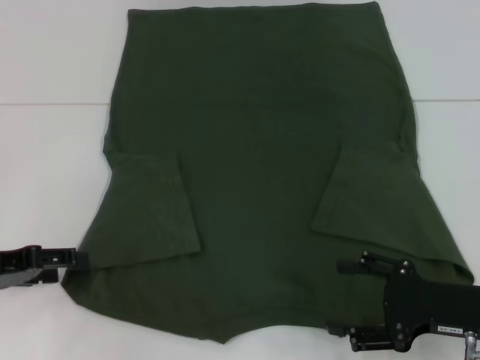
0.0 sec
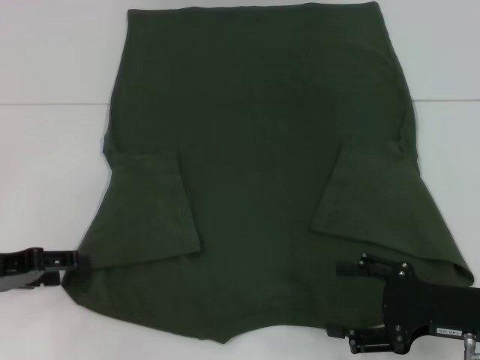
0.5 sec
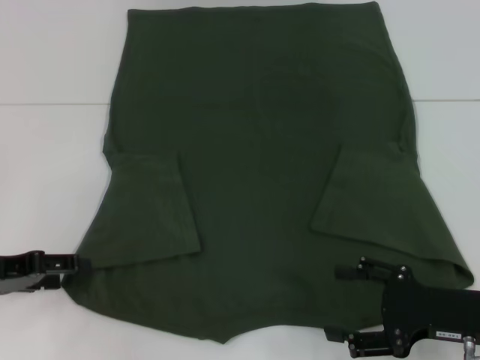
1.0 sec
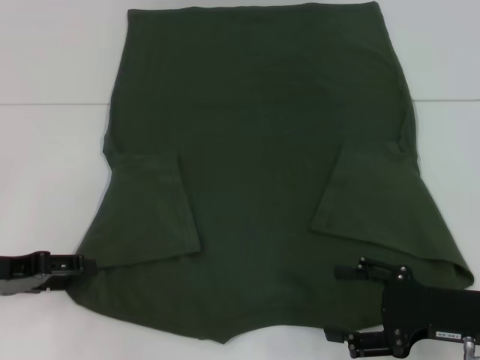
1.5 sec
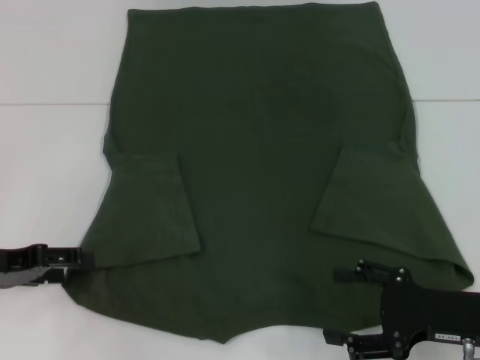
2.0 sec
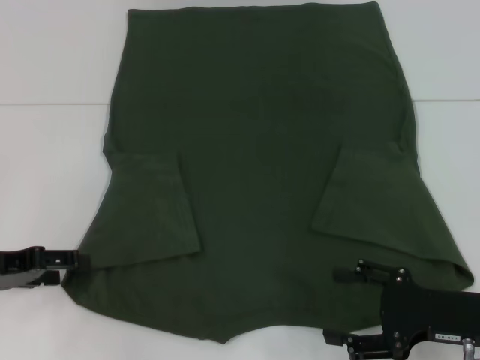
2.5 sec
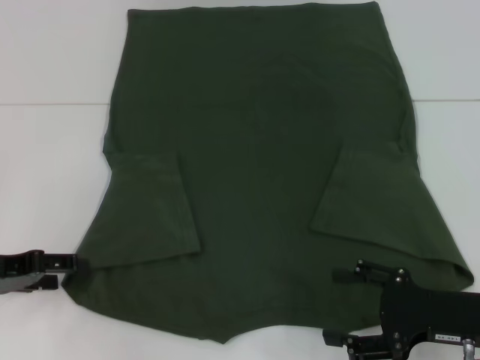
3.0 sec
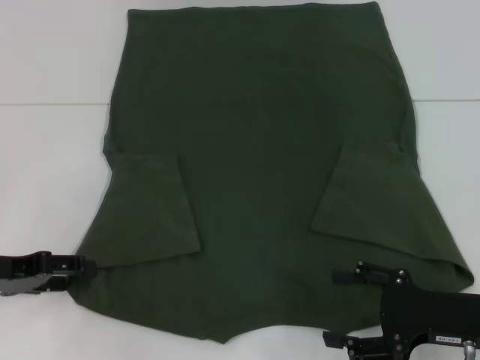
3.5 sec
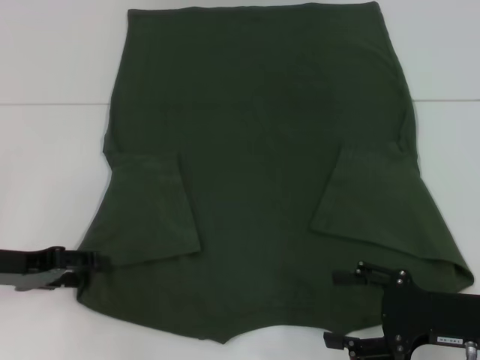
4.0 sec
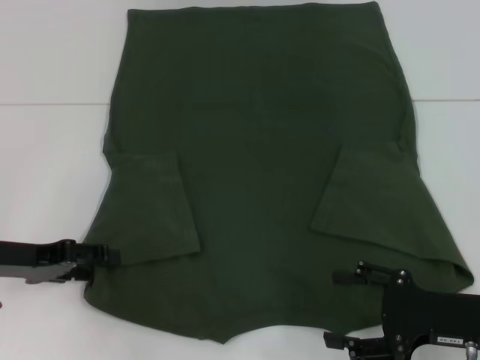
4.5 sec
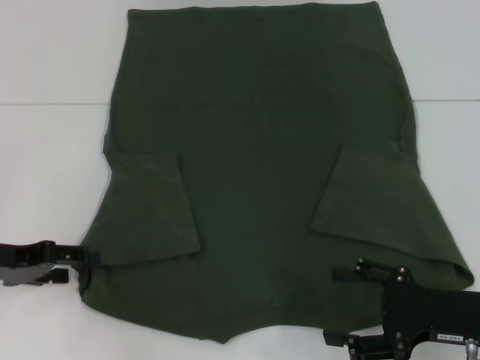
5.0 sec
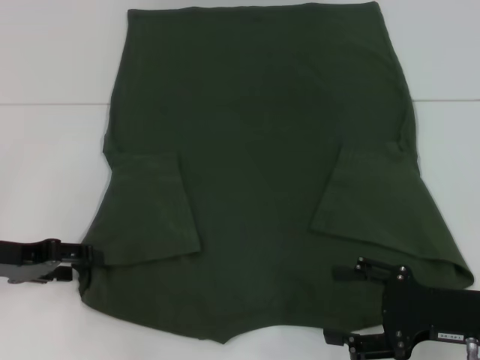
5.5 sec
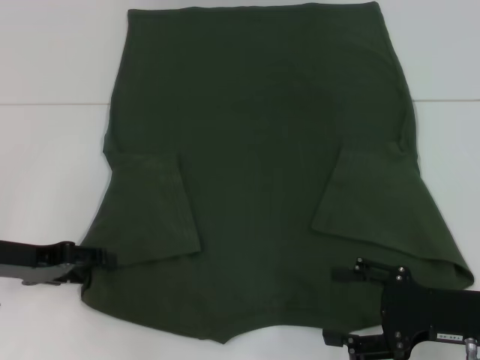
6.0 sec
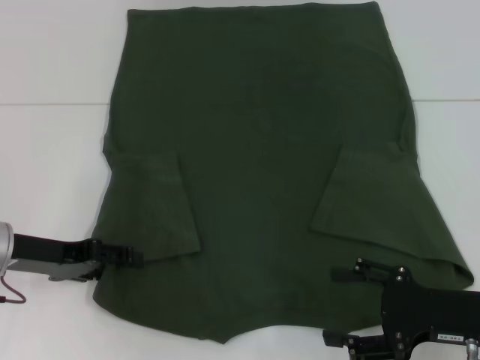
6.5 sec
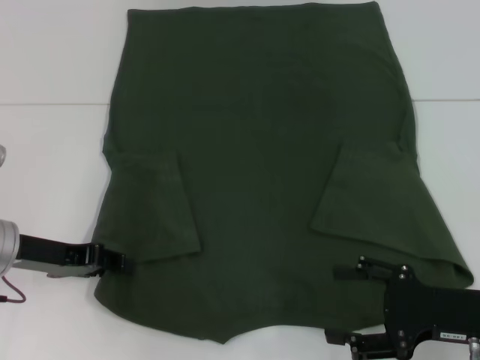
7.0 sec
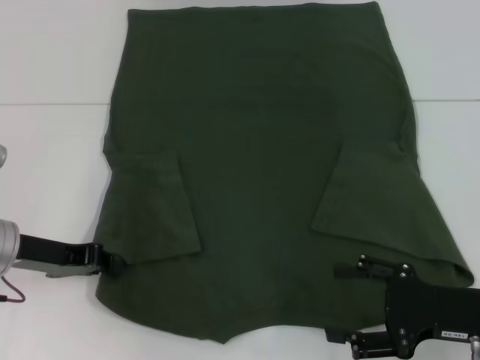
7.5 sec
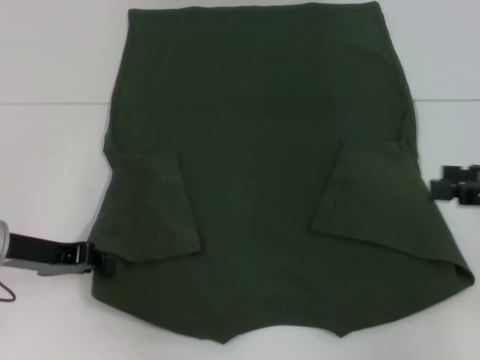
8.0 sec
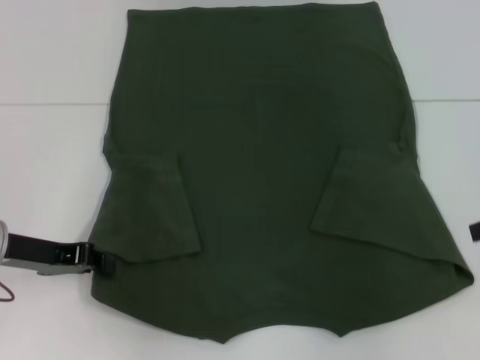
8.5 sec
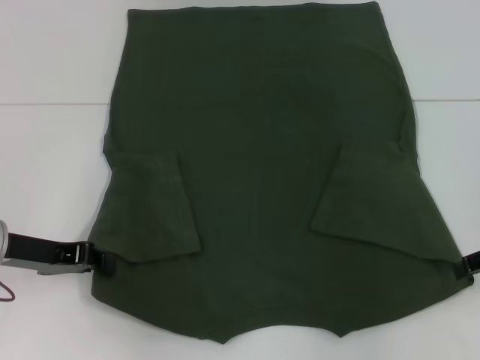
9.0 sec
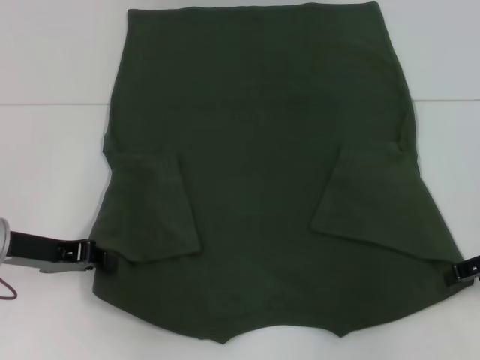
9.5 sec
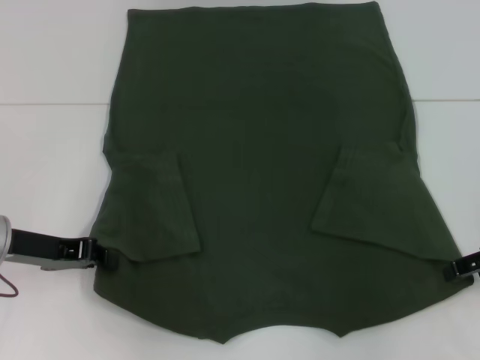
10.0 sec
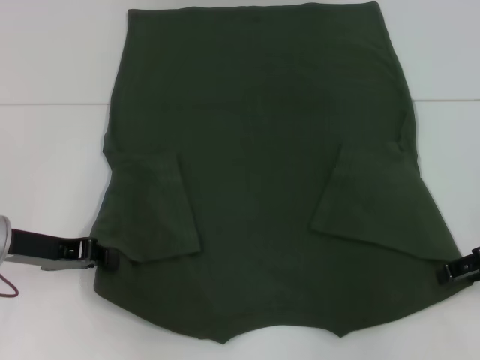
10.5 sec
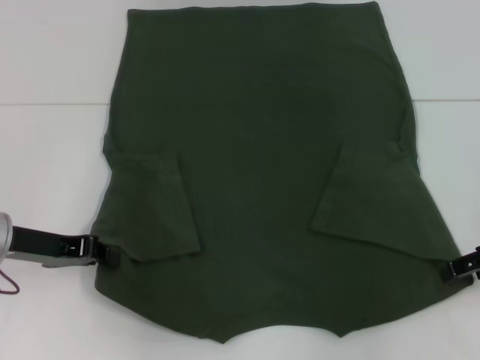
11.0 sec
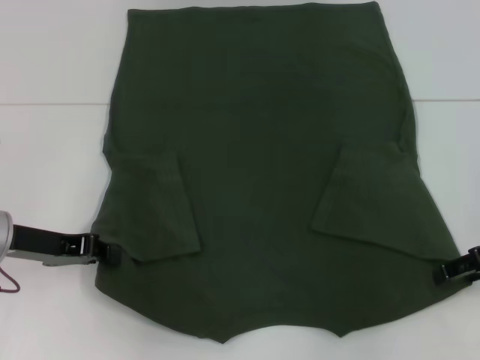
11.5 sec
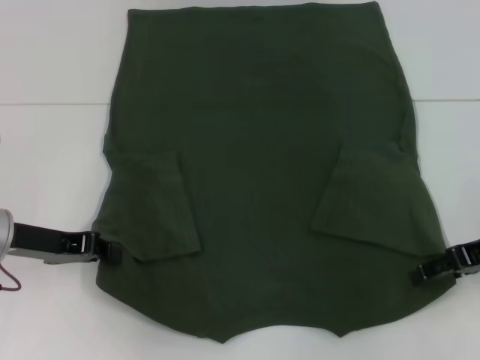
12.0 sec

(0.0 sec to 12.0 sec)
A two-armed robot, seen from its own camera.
Step, 0.0 sec - 7.0 sec: Grab the bottom left corner with your left hand.
0.0 sec - 2.0 sec: The two grippers keep their place.
2.0 sec - 6.0 sec: The grippers stay close to where they were, moving slightly.
6.0 sec - 8.0 sec: The right gripper travels upward and to the right by roughly 15 cm, while the left gripper closes.
8.0 sec - 10.0 sec: The right gripper changes place by roughly 5 cm.
10.0 sec - 12.0 sec: There are only small adjustments of the grippers.

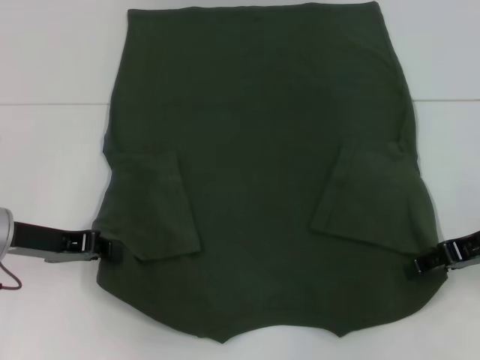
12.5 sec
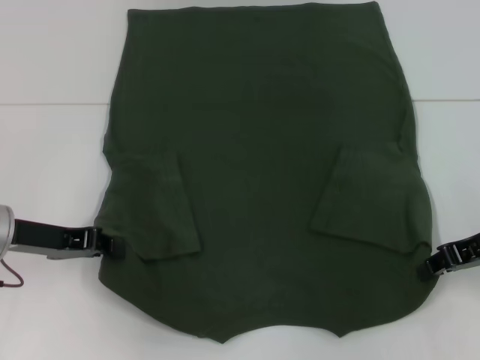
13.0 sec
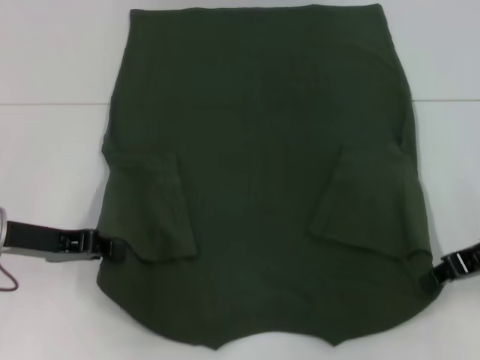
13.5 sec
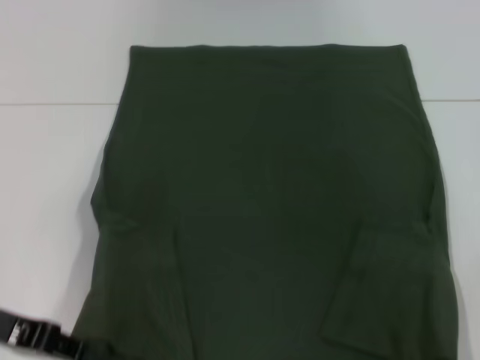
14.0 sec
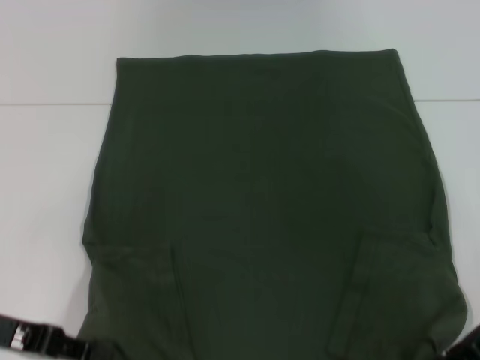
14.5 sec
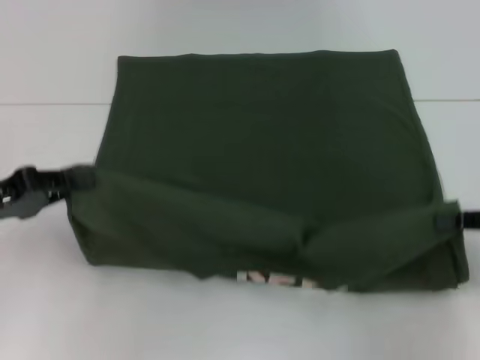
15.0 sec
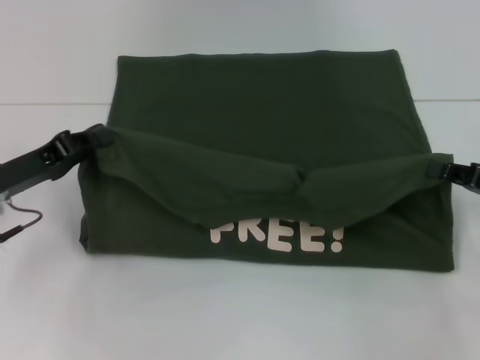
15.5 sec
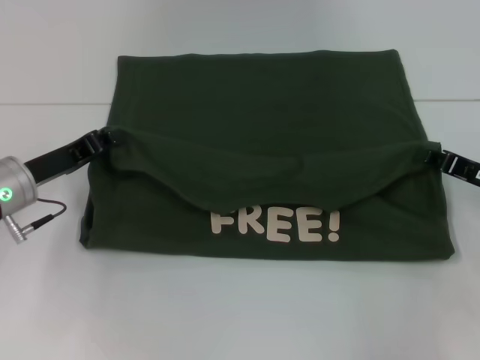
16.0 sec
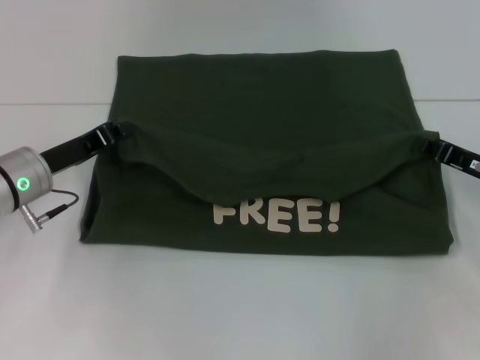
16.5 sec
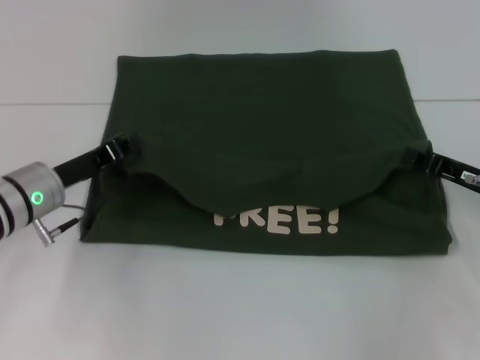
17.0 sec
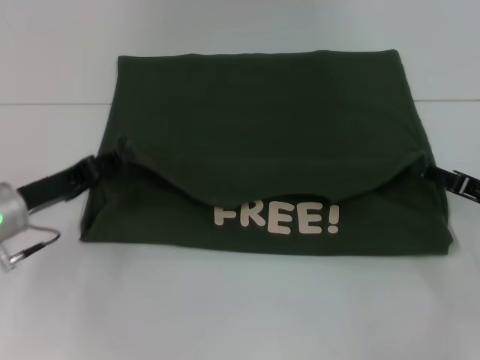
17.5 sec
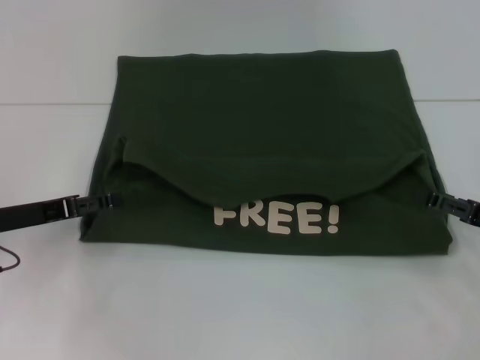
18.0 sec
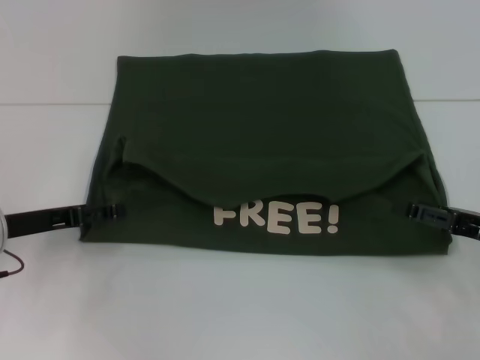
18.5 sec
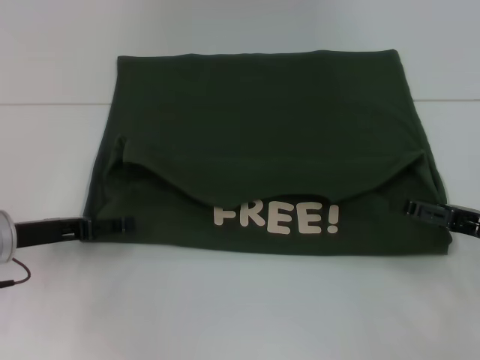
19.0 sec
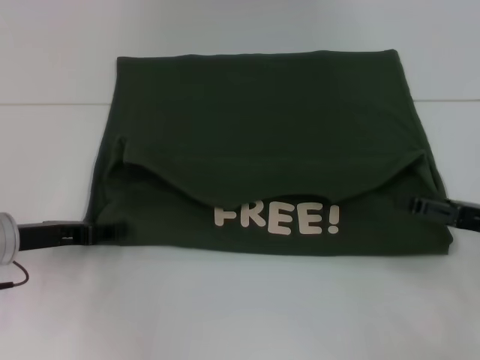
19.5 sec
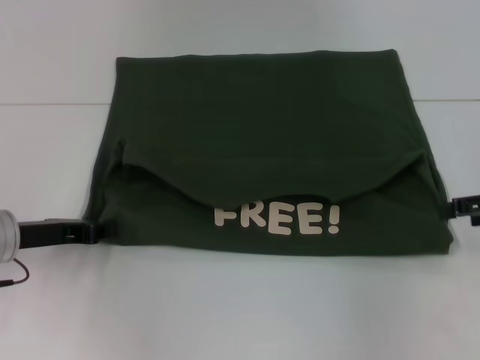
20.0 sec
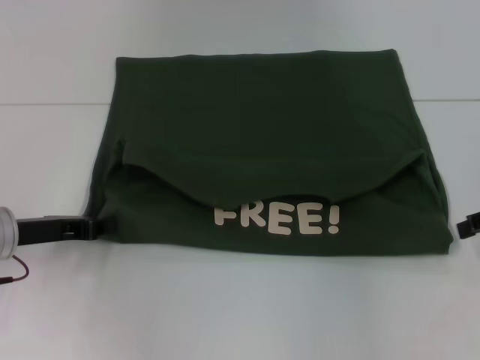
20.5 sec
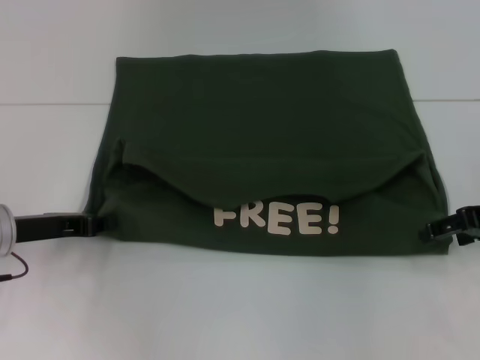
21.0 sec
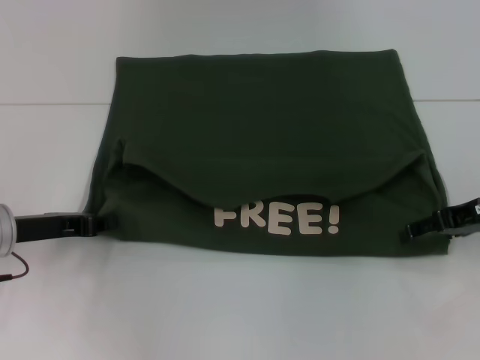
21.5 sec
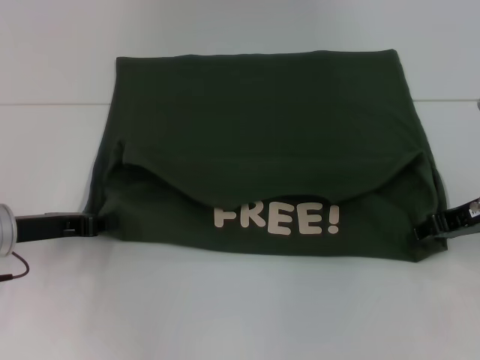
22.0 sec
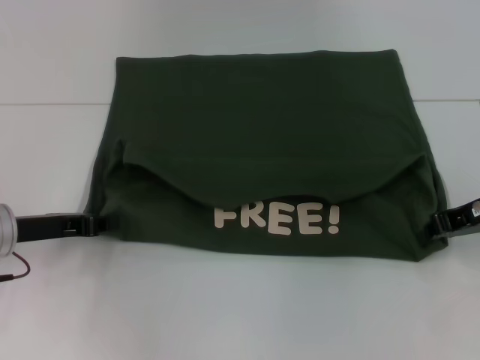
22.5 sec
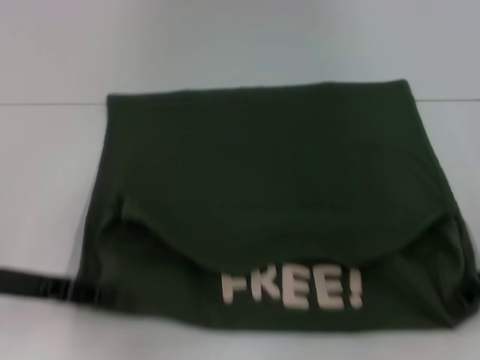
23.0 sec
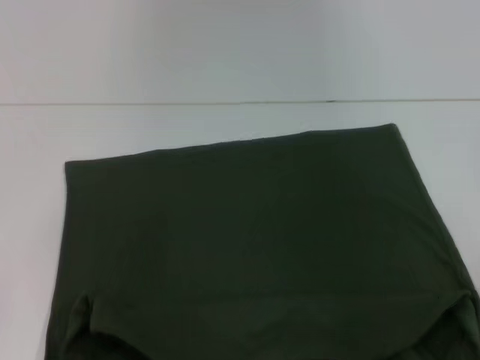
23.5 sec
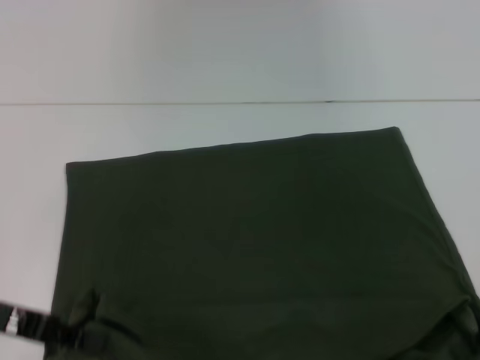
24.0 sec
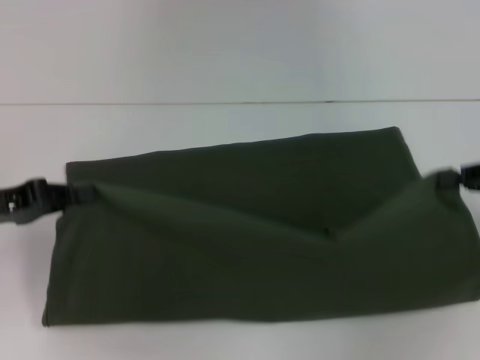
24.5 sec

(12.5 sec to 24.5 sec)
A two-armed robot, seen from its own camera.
Step, 13.0 sec - 17.0 sec: Fold the clothes with your left hand.
Step, 13.0 sec - 17.0 sec: Fold the clothes with your right hand.
Step, 17.5 sec - 23.5 sec: Pull the clothes with your left hand.
Step, 17.5 sec - 23.5 sec: Pull the clothes with your right hand.
12.5 sec - 14.5 sec: The grippers both shift backward by roughly 5 cm. The right gripper closes its fingers.
14.5 sec - 16.5 sec: The left gripper goes about 10 cm forward; the right gripper moves forward, about 5 cm.
16.5 sec - 18.5 sec: The right gripper moves backward, roughly 5 cm, and opens. Meanwhile the left gripper shifts by about 5 cm, and opens up.
18.5 sec - 20.5 sec: The right gripper is displaced upward and forward by about 10 cm; the left gripper closes up.
20.5 sec - 22.5 sec: The right gripper moves to the left, about 5 cm, and closes its fingers.
22.5 sec - 24.5 sec: The left gripper reaches some 10 cm backward, then returns. The right gripper shifts some 5 cm to the right, and goes backward and returns, roughly 10 cm each way.

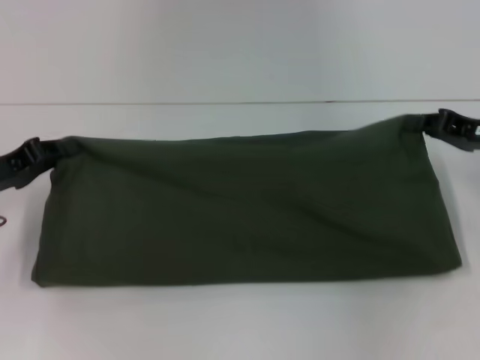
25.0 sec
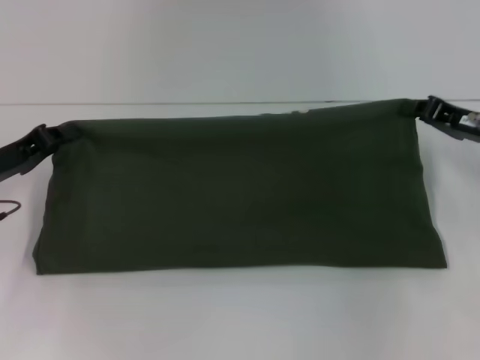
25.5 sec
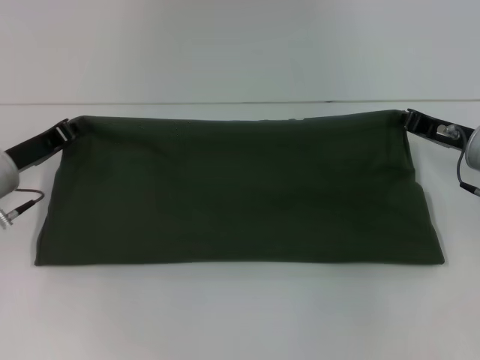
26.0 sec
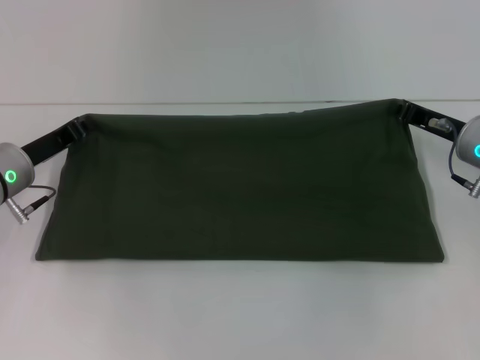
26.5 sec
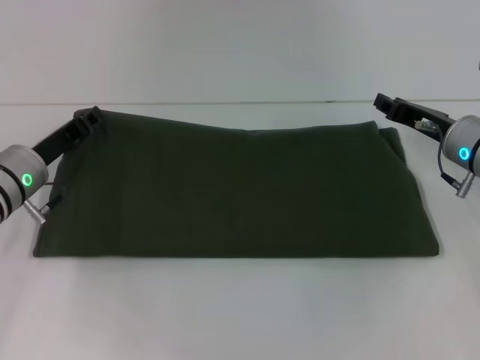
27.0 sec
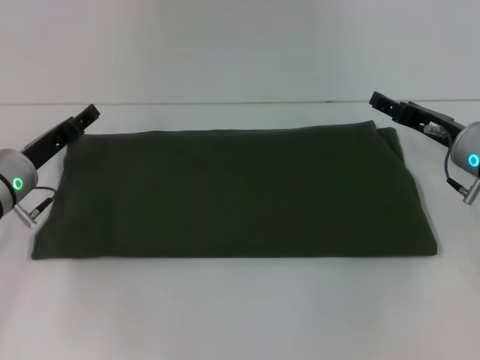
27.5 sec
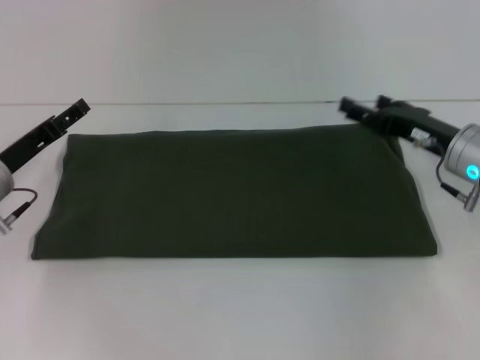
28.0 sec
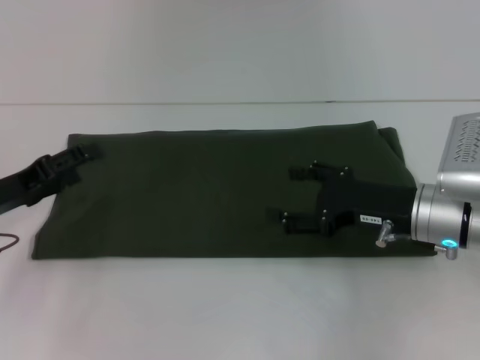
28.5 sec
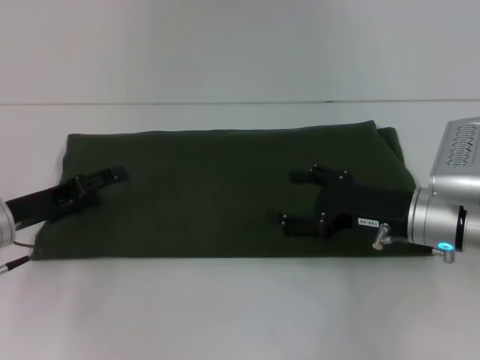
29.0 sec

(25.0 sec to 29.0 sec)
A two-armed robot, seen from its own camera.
Step, 25.0 sec - 27.0 sec: Fold the clothes with your right hand.
25.0 sec - 27.0 sec: The left gripper goes approximately 10 cm to the right and forward, while the right gripper travels to the left by about 5 cm.
27.0 sec - 29.0 sec: Both grippers move backward, some 5 cm. The left gripper opens. Meanwhile the right gripper opens.
